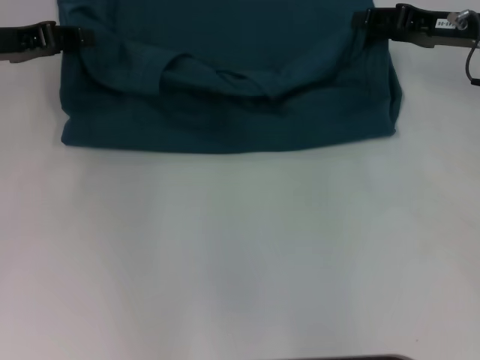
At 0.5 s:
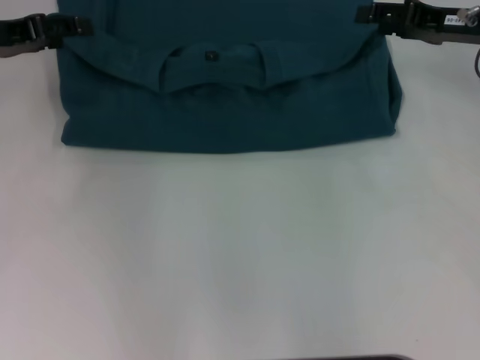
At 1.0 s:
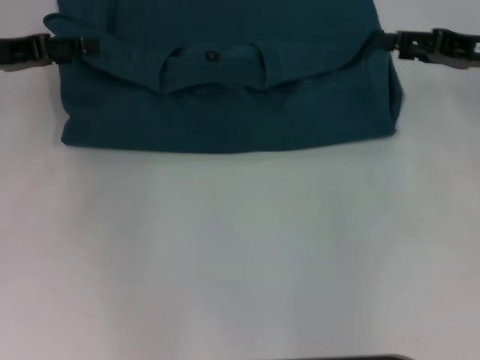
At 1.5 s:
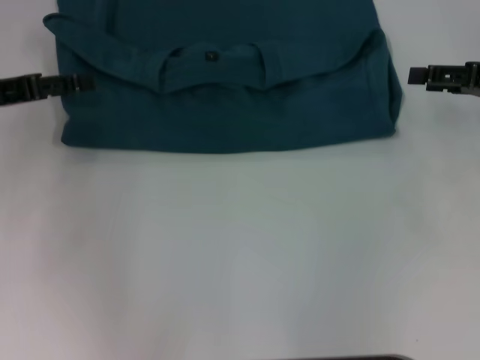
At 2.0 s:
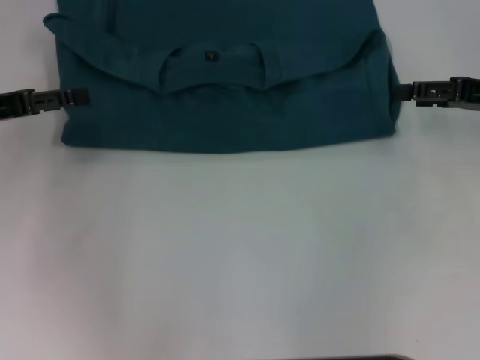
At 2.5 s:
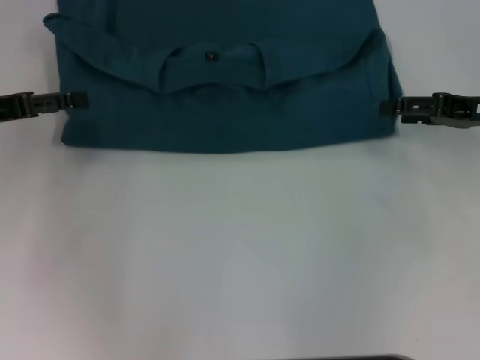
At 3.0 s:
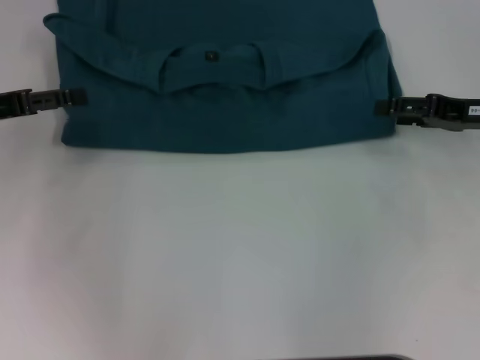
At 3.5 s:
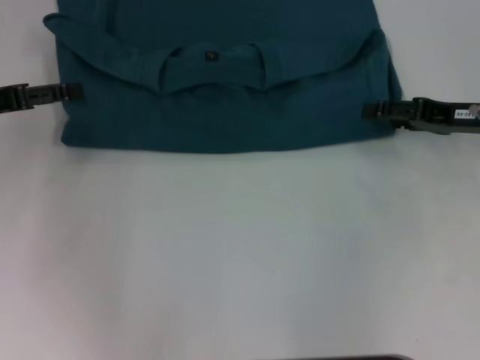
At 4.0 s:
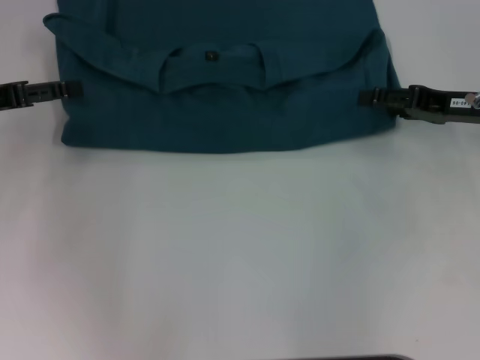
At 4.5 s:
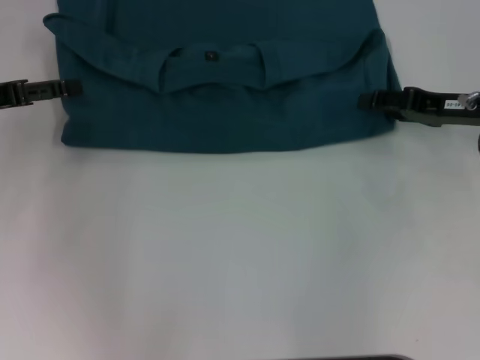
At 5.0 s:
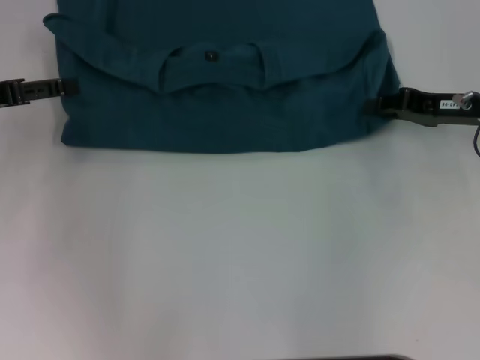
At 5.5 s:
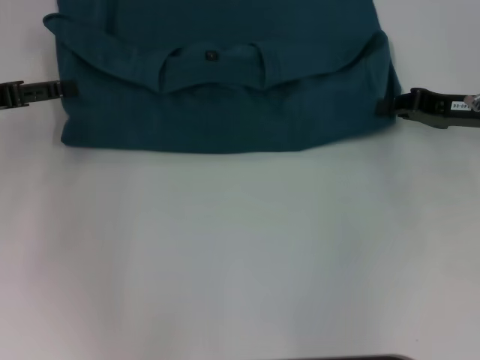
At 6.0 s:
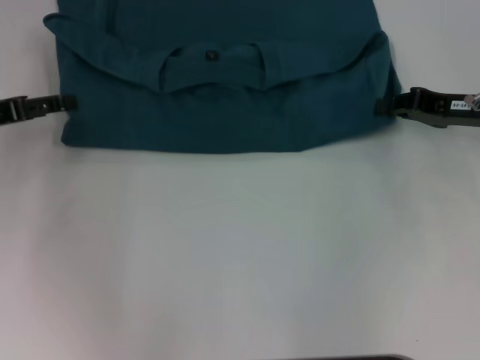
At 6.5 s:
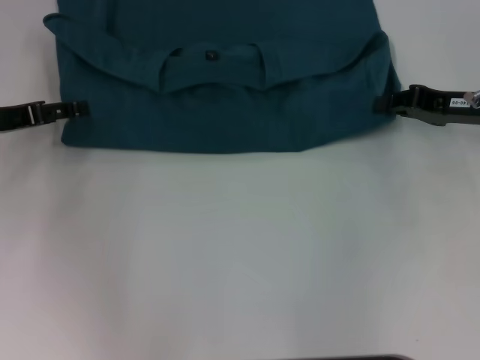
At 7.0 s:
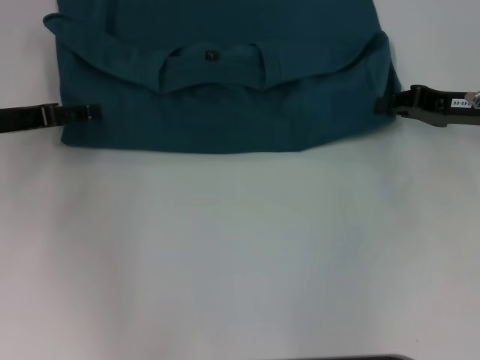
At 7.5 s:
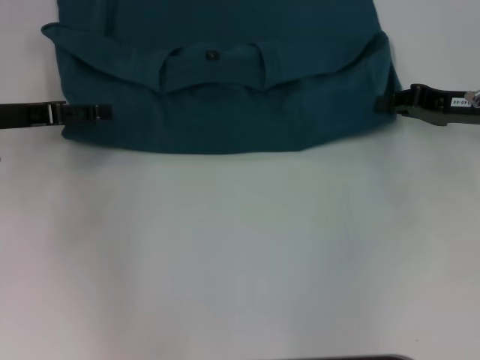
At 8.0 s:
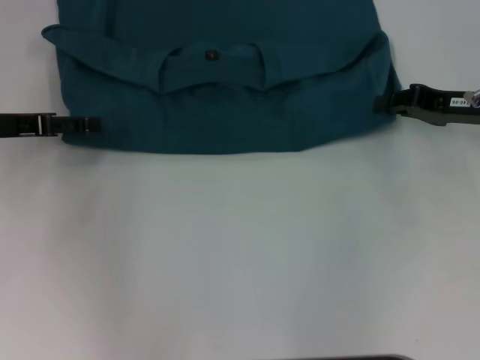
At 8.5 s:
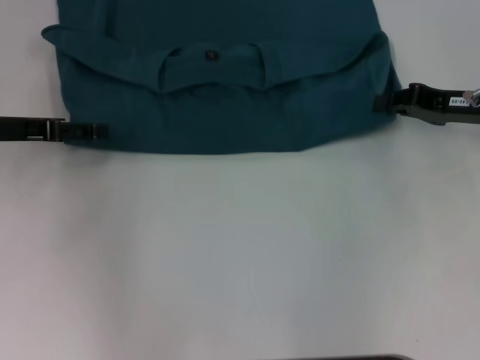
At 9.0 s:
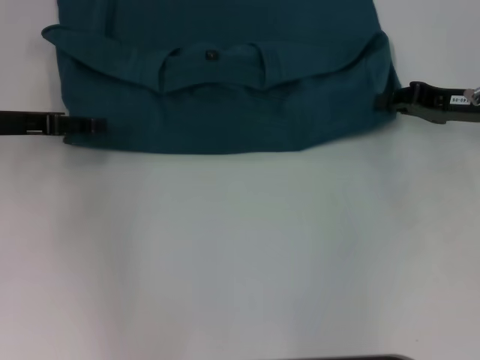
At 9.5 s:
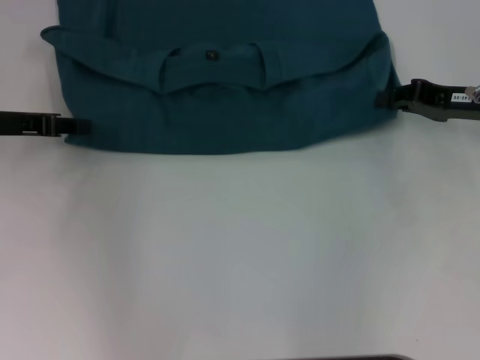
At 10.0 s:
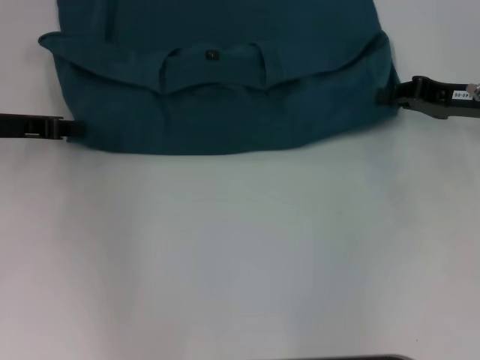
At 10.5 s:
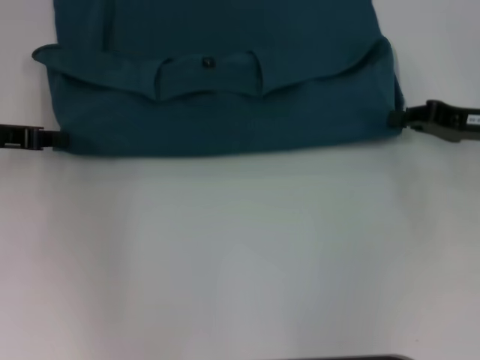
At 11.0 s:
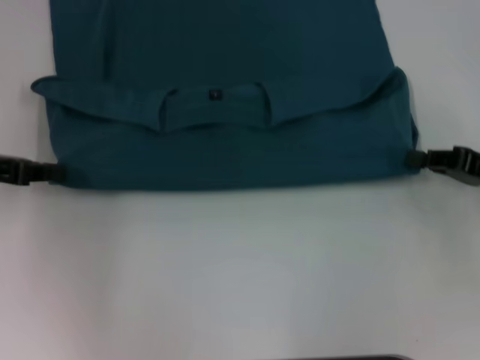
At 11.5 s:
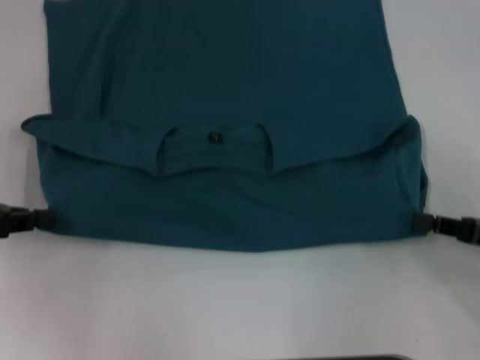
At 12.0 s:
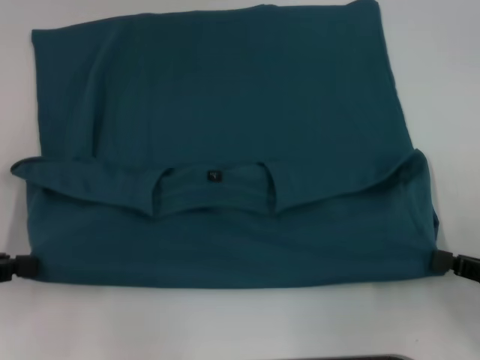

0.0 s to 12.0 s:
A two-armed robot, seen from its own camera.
0.0 to 2.0 s: The left gripper is displaced backward by about 5 cm, and opens; the right gripper heads backward and to the right, covering approximately 10 cm, and opens.
2.0 to 4.0 s: The grippers move only a little.
4.0 to 6.0 s: The right gripper closes its fingers.
6.0 to 8.0 s: The grippers stay close to where they were, moving slightly.
8.0 to 10.0 s: The left gripper closes its fingers.
10.0 to 12.0 s: The left gripper moves backward and to the left, approximately 15 cm, while the right gripper is displaced backward by approximately 20 cm.

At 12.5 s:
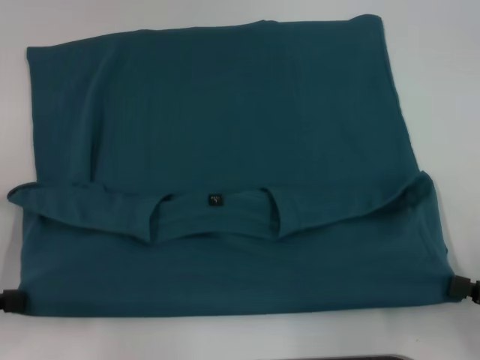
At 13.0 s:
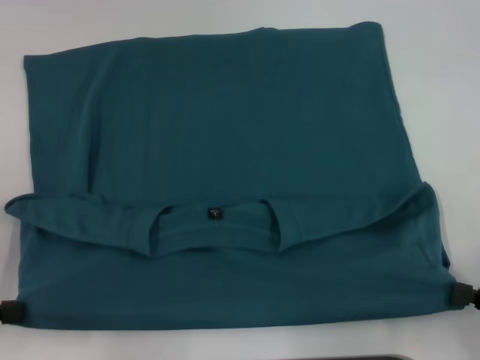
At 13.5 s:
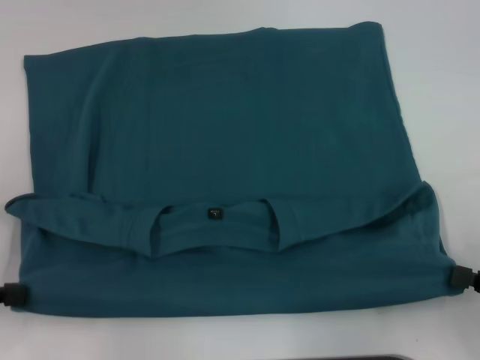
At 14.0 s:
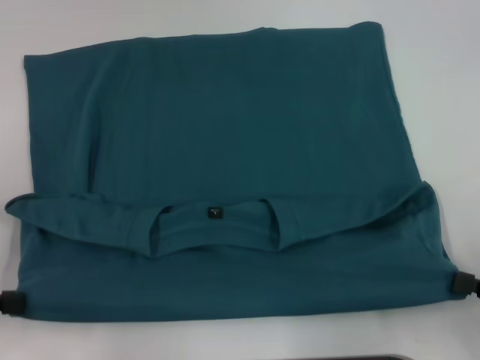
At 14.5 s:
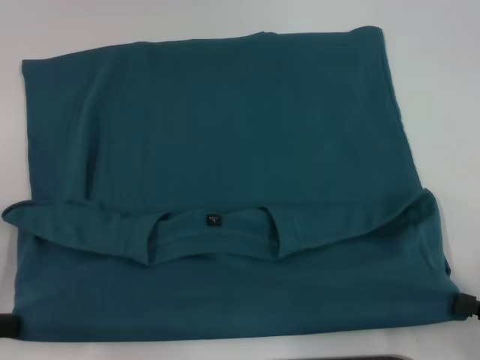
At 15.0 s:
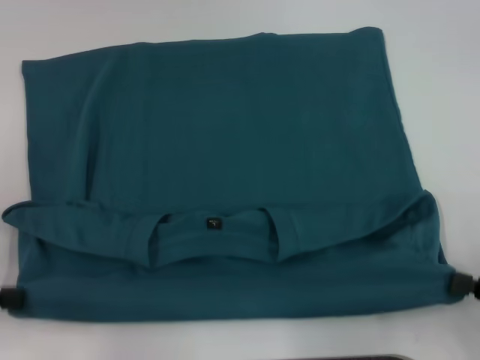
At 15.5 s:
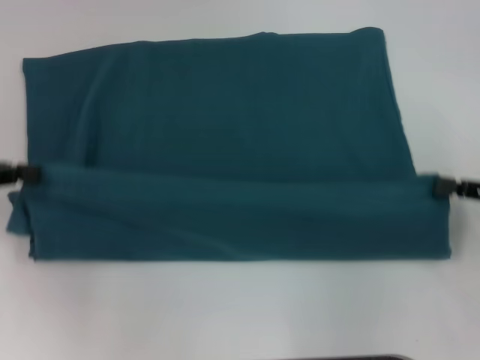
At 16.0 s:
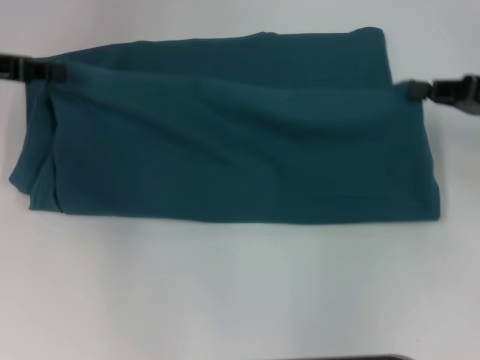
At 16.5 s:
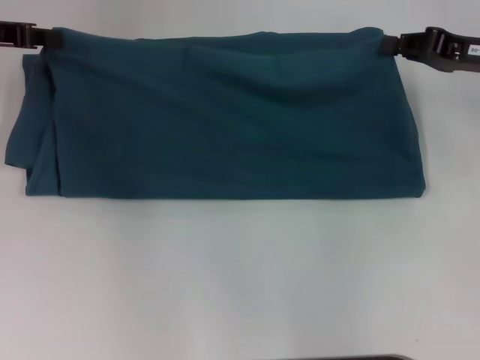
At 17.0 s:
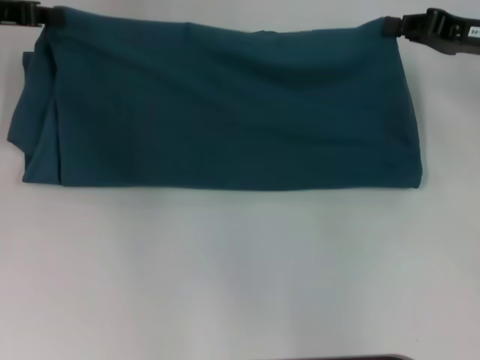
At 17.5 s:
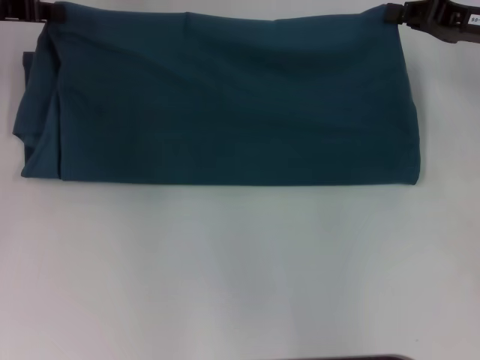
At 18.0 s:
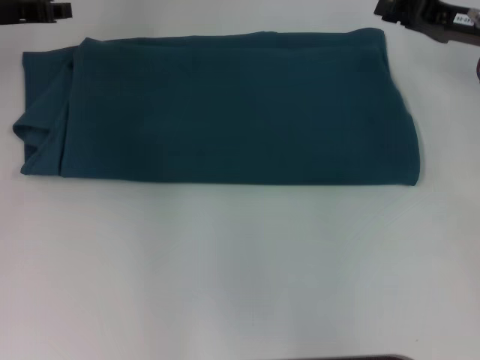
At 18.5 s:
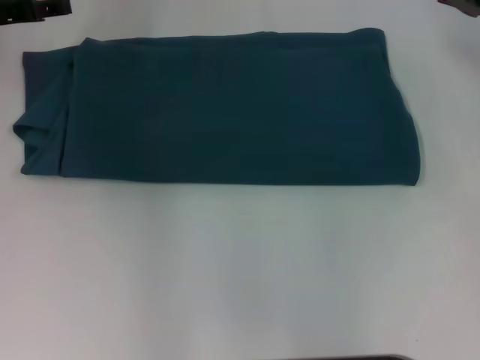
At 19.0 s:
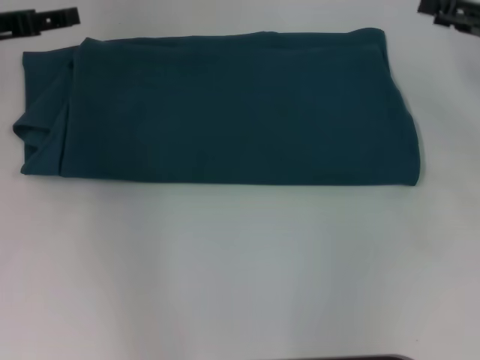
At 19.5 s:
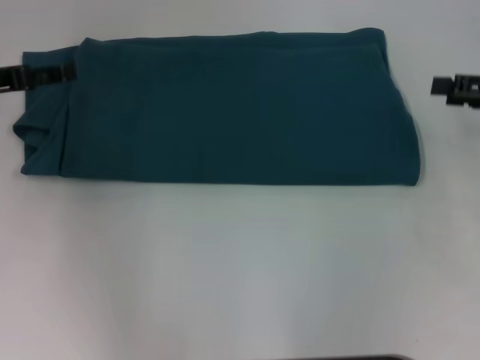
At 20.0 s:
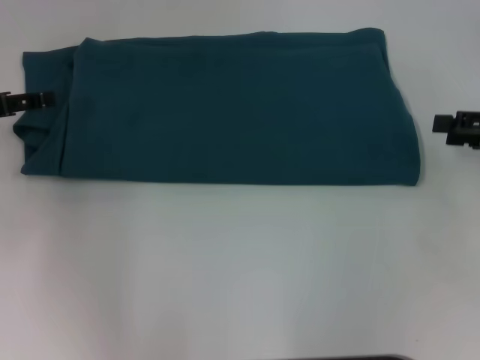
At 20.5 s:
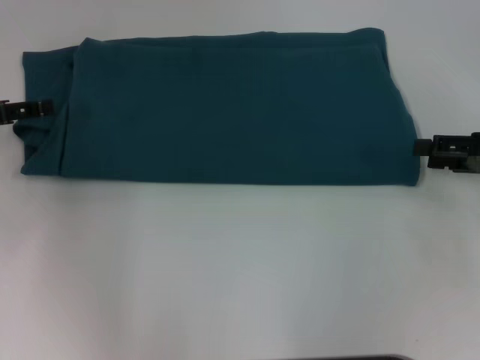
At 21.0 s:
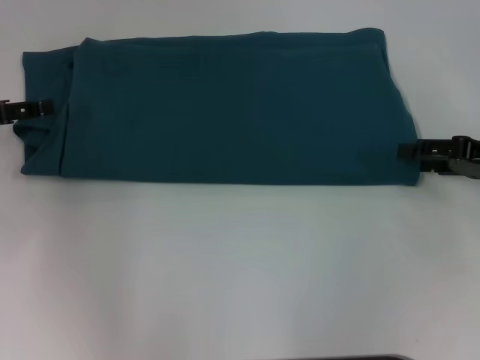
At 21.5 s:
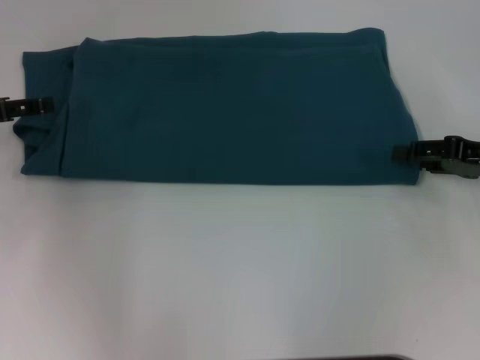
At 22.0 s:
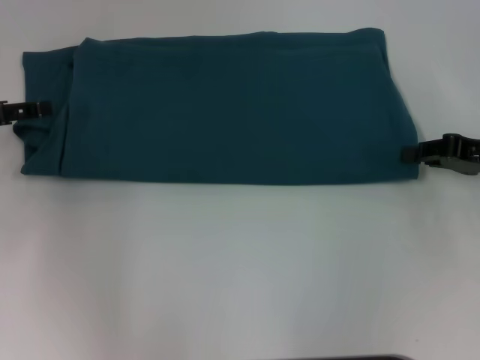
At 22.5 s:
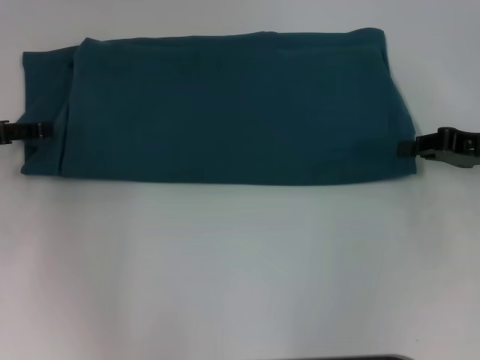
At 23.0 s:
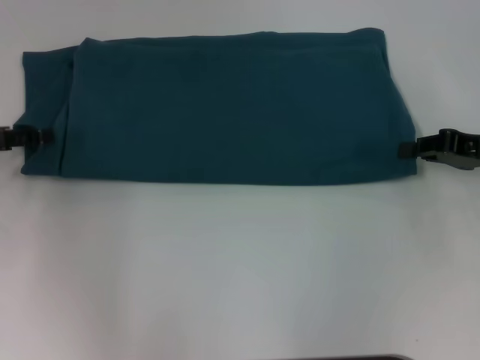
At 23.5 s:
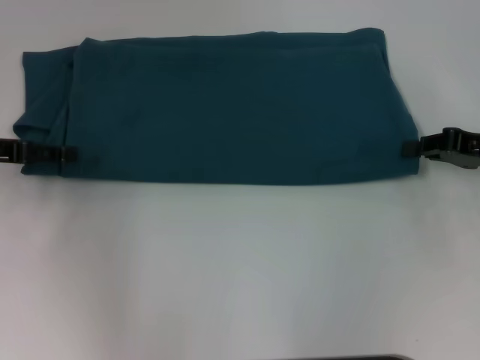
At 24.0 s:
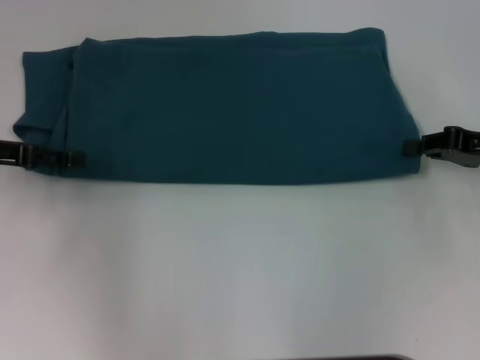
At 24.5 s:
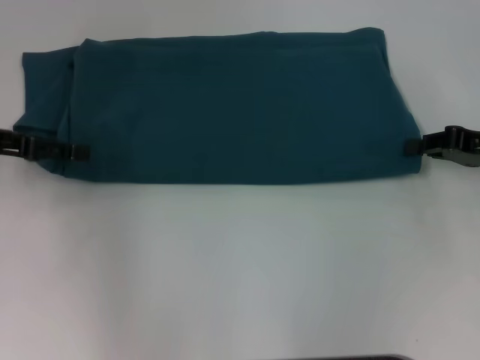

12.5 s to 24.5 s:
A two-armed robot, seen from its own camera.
Step, 13.0 to 18.0 s: Fold the clothes to the left.
Step, 13.0 to 18.0 s: Fold the clothes to the right.
12.5 to 14.5 s: The grippers stay close to where they were, moving slightly.
14.5 to 16.5 s: The two grippers go about 25 cm forward.
16.5 to 18.5 s: The left gripper opens its fingers, while the right gripper opens up.
18.5 to 20.5 s: Both grippers move backward, about 10 cm.
20.5 to 22.5 s: The right gripper closes up.
22.5 to 24.5 s: There are only small adjustments of the grippers.

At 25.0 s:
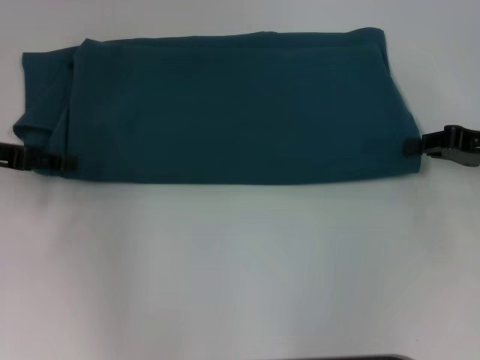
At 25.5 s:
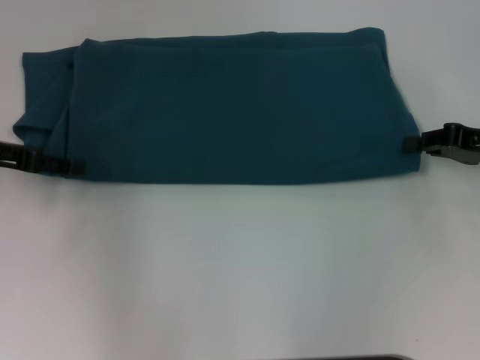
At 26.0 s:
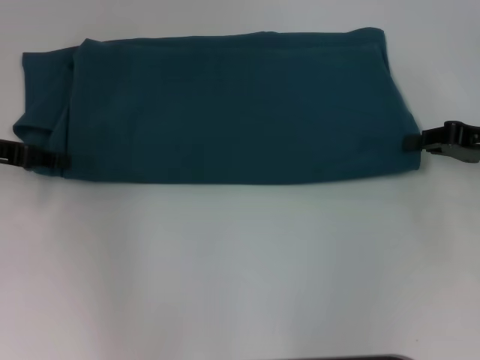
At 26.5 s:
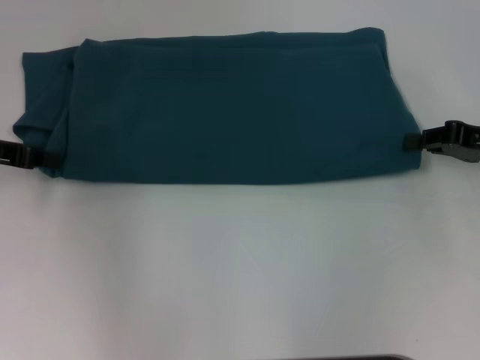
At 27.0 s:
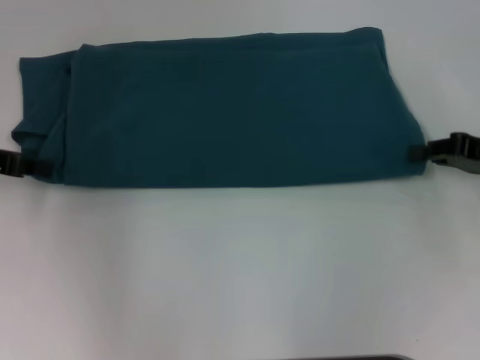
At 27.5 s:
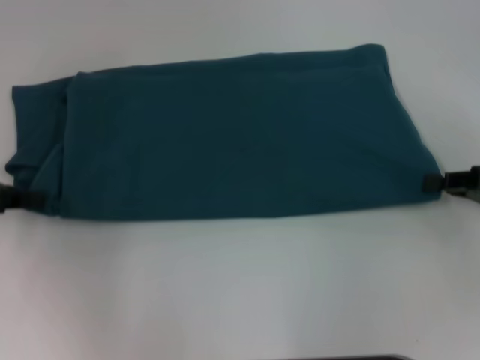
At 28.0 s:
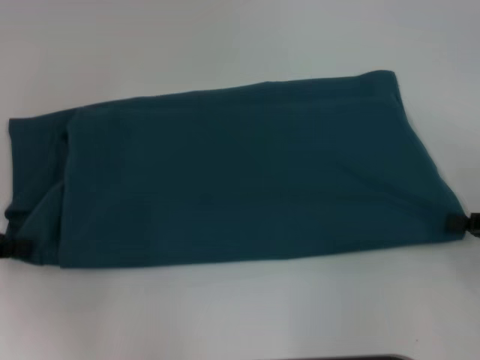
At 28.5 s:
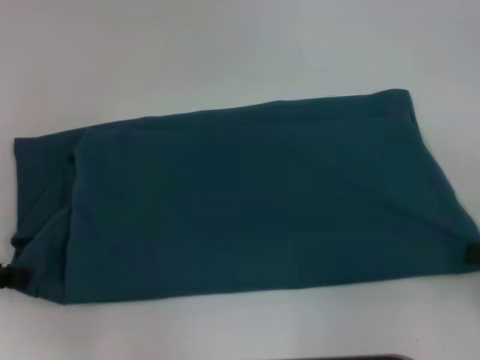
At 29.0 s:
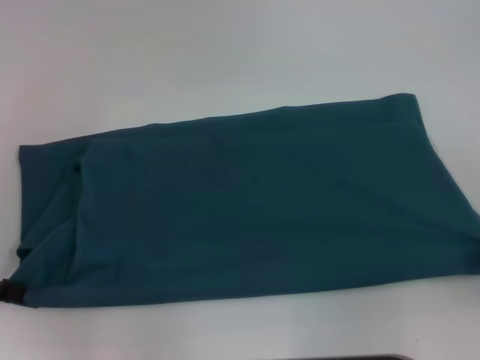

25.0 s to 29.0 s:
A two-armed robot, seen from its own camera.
25.0 to 27.0 s: The left gripper closes.
27.0 to 29.0 s: The grippers both shift backward by about 10 cm.
